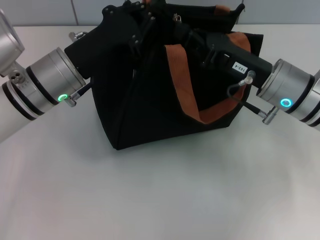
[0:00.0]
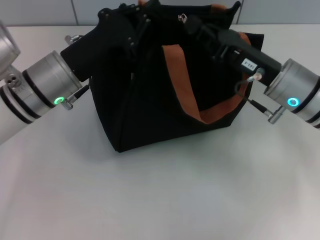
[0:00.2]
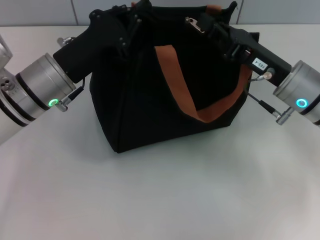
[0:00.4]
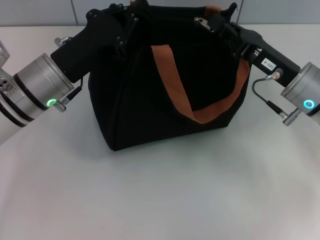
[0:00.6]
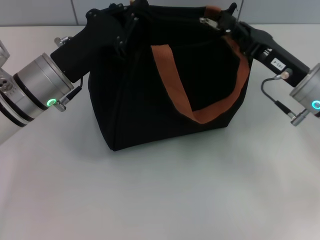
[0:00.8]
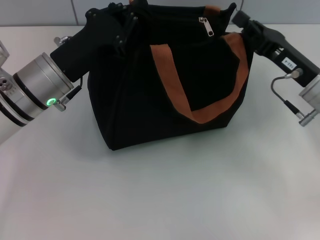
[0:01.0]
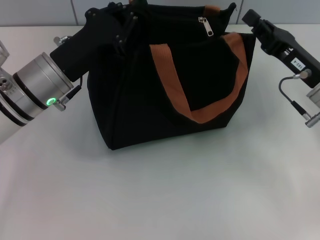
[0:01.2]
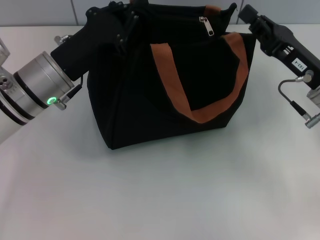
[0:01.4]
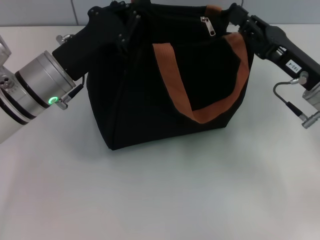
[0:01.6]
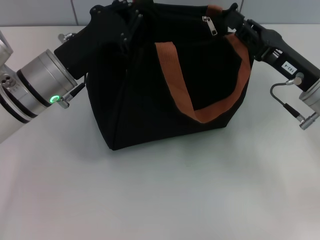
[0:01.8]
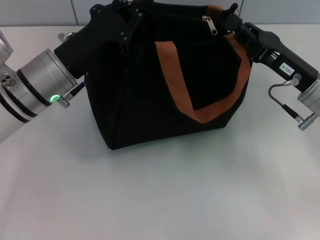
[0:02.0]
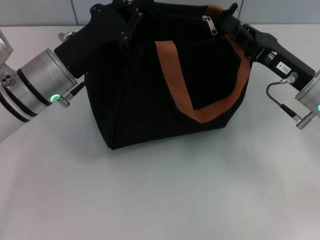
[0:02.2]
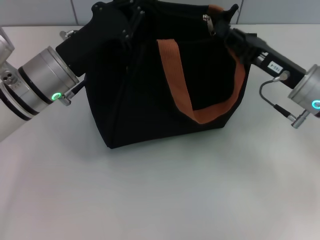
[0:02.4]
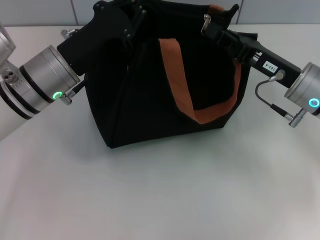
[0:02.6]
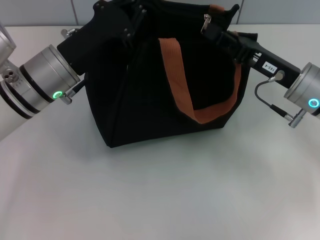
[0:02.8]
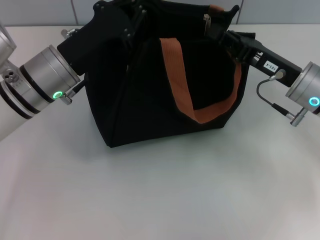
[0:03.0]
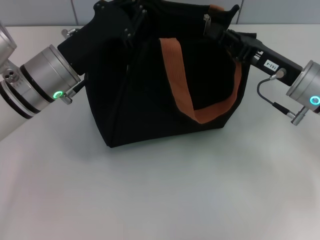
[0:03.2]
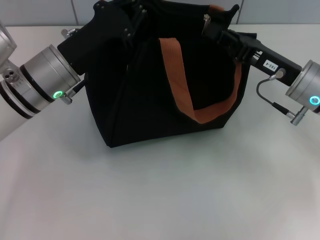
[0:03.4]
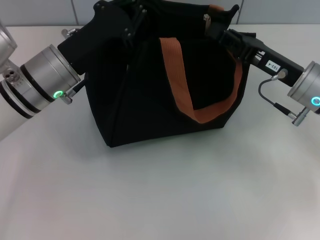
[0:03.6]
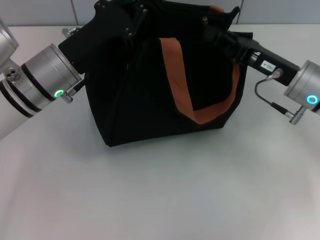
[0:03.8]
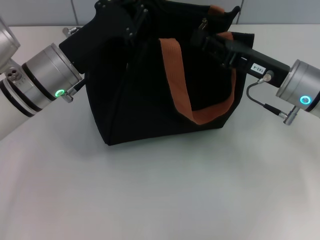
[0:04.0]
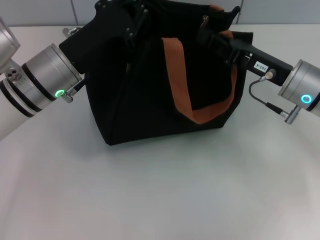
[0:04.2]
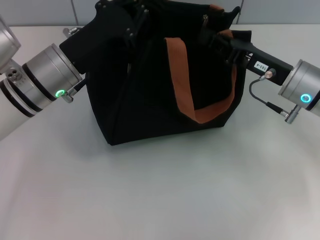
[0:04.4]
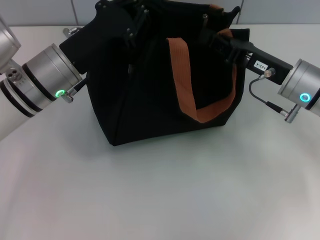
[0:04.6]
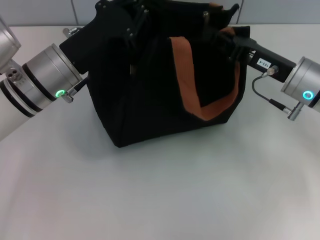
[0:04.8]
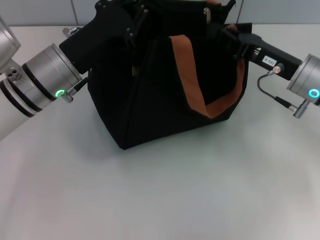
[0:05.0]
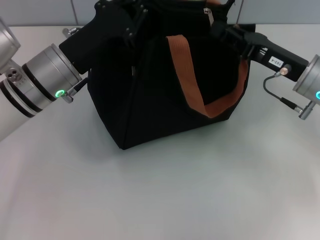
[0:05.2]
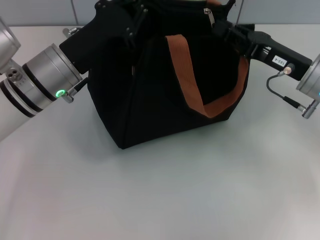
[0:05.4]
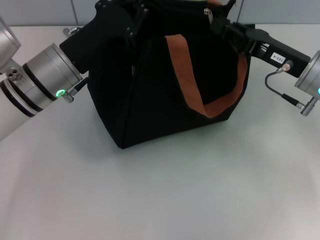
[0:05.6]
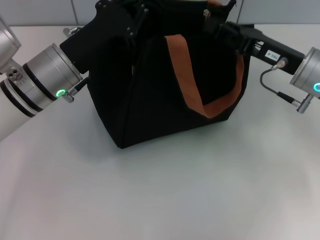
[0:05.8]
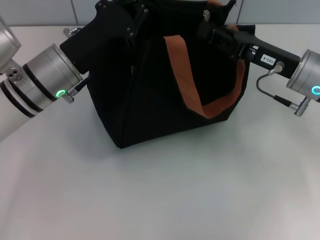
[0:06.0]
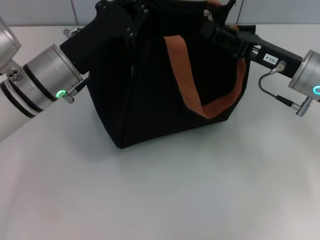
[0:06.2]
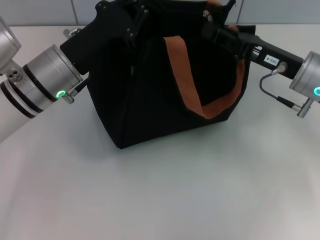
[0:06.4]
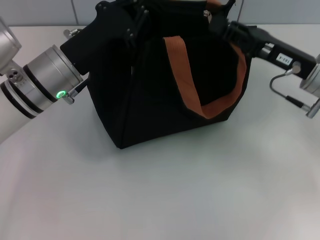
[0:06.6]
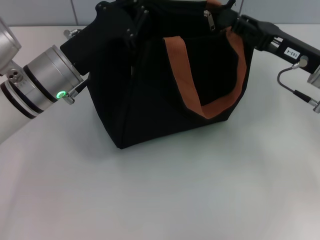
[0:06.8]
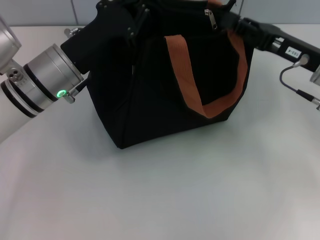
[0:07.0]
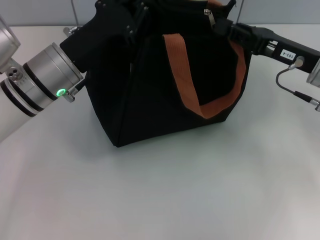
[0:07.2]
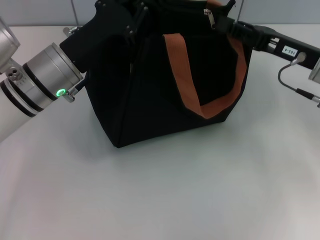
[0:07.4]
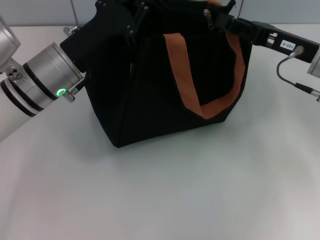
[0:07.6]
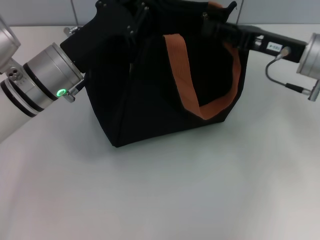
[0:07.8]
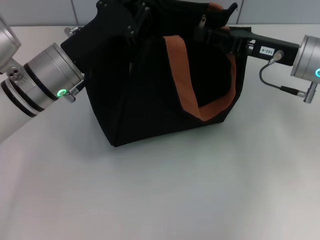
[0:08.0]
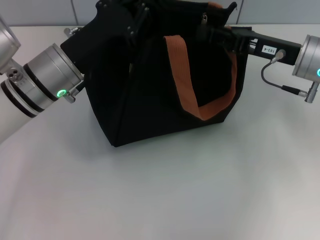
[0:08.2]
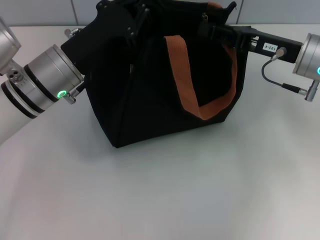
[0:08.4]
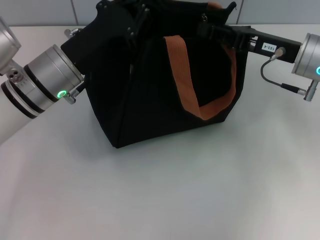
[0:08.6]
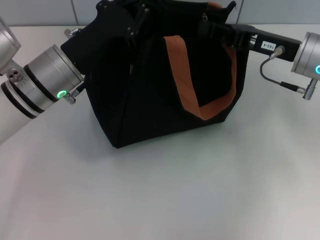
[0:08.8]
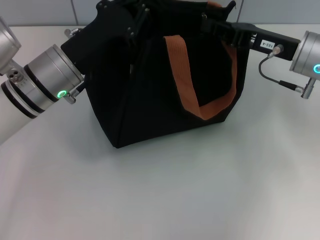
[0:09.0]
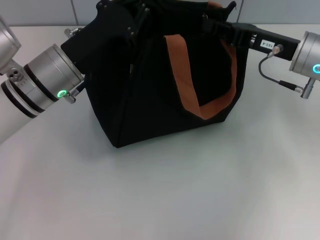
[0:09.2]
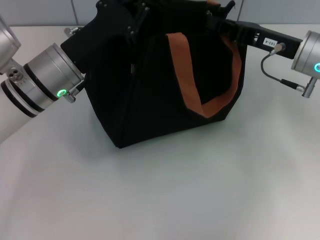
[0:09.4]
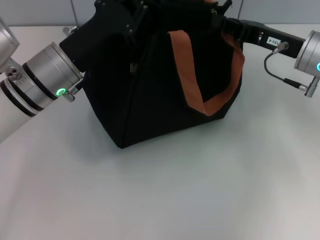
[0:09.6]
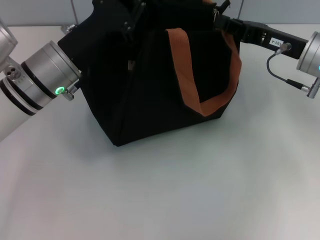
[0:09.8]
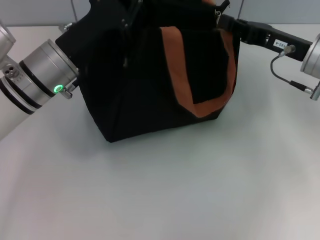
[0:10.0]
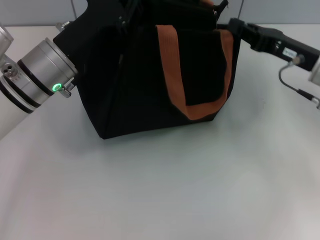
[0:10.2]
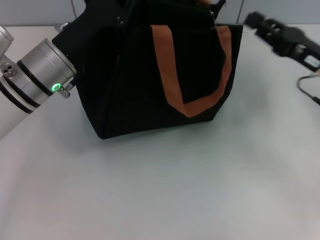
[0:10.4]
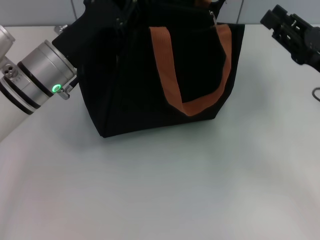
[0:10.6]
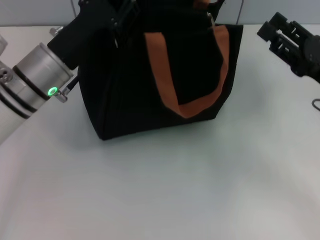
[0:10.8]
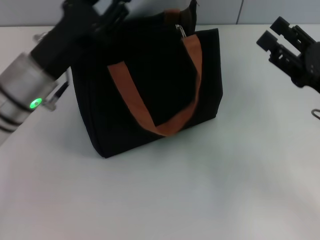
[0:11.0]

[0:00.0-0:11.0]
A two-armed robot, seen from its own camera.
Step, 0:00.0 to 0:10.2: Pull up the zipper with your right hand.
0:00.0 to 0:01.6: The right gripper travels to the right by roughly 5 cm.
0:01.6 to 0:06.2: There are only small adjustments of the grippers.
0:06.2 to 0:07.8: There are only small adjustments of the grippers.
0:07.8 to 0:09.4: Both grippers stay about where they are.
0:09.4 to 0:11.0: The right gripper shifts about 10 cm backward, and opens up.

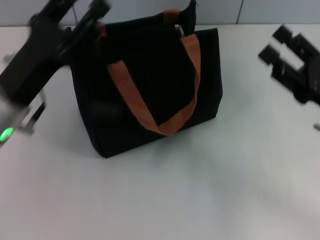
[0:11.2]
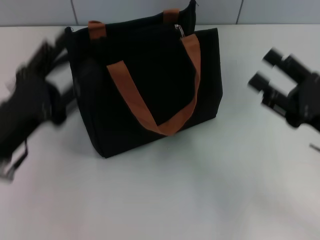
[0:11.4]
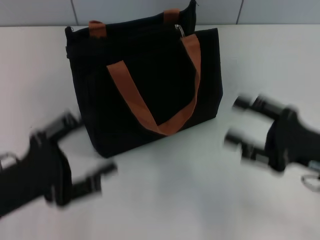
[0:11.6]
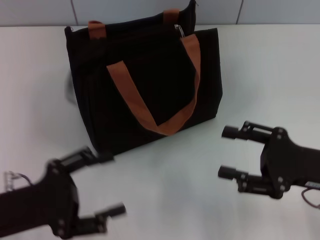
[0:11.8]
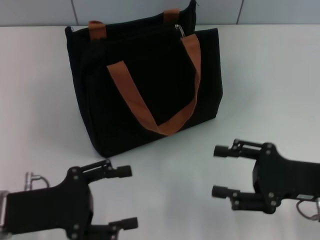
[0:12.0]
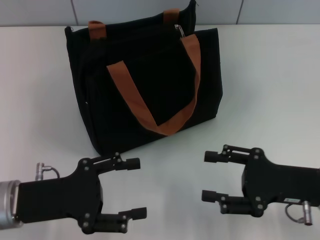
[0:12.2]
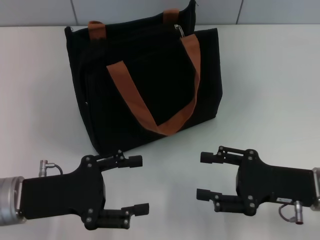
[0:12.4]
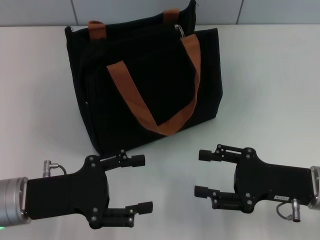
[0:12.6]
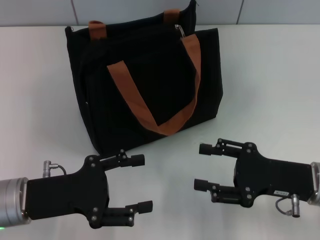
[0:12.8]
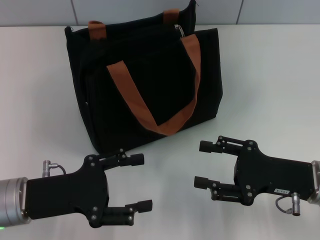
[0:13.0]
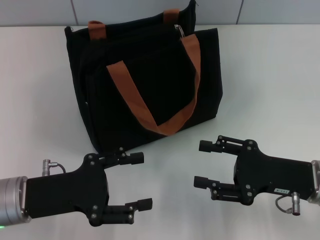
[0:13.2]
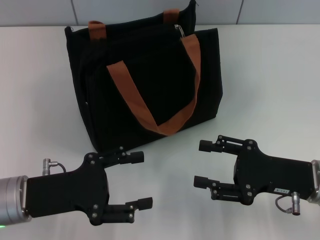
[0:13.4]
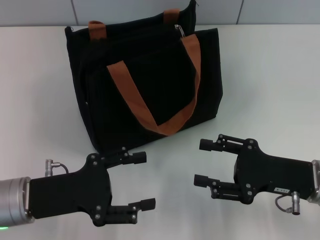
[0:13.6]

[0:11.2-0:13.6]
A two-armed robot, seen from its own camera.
0:11.2 to 0:12.4: The left gripper travels backward by approximately 5 cm, and opens up, while the right gripper ends up roughly 5 cm from where it was.
0:12.4 to 0:13.6: Both grippers stay put.

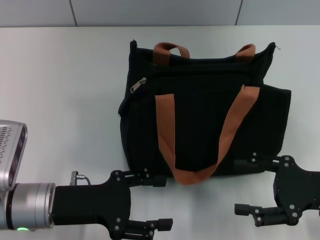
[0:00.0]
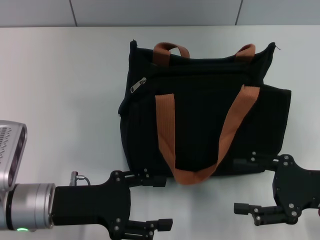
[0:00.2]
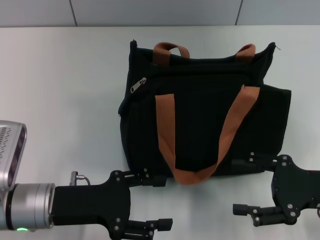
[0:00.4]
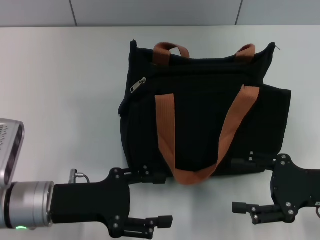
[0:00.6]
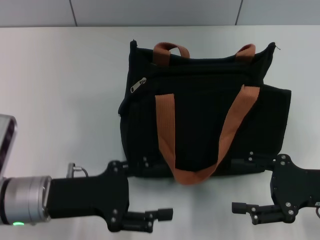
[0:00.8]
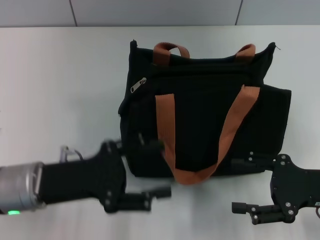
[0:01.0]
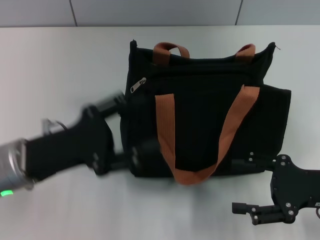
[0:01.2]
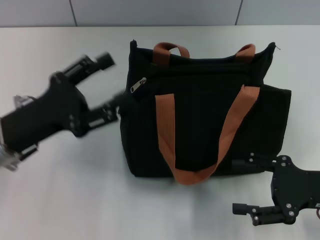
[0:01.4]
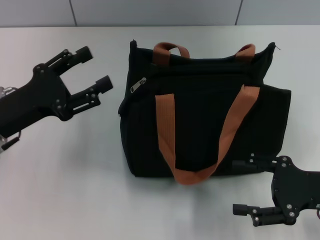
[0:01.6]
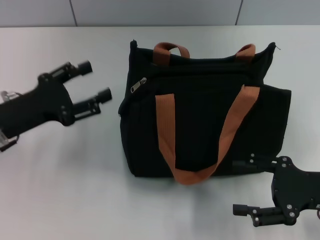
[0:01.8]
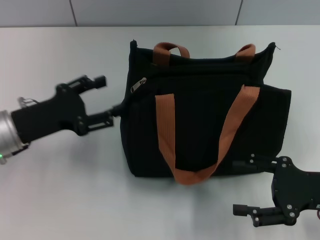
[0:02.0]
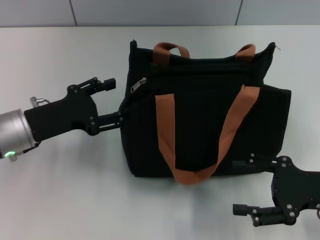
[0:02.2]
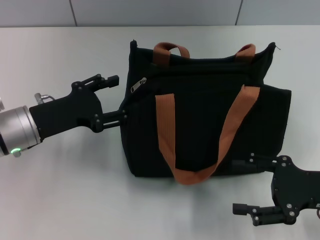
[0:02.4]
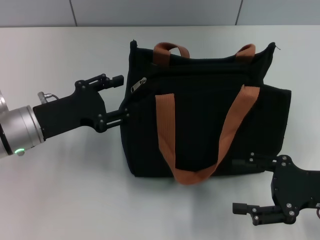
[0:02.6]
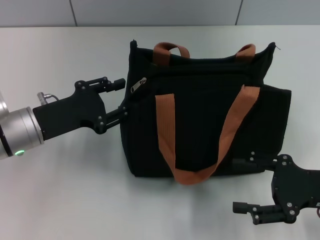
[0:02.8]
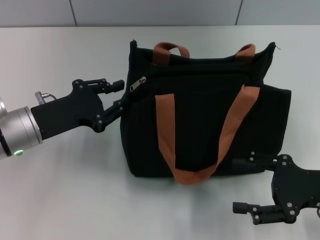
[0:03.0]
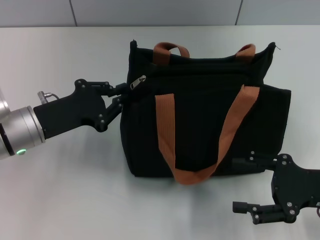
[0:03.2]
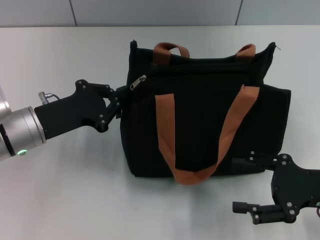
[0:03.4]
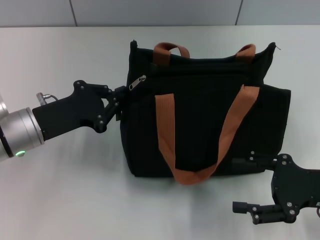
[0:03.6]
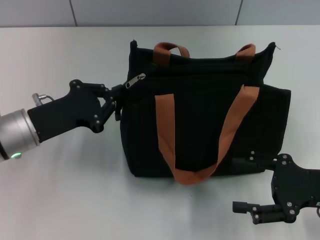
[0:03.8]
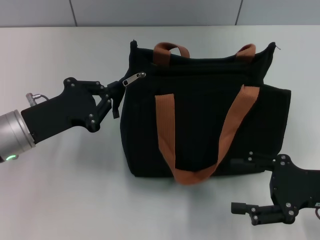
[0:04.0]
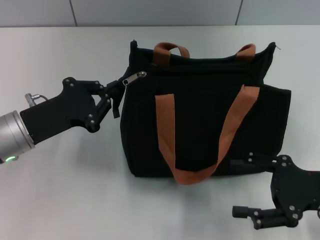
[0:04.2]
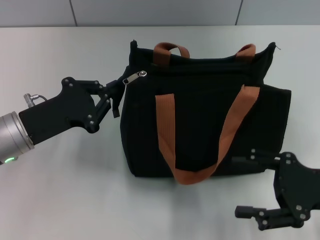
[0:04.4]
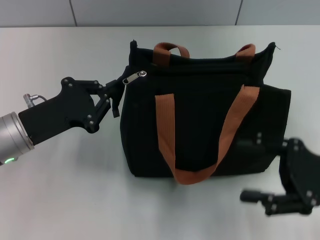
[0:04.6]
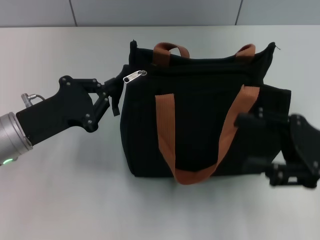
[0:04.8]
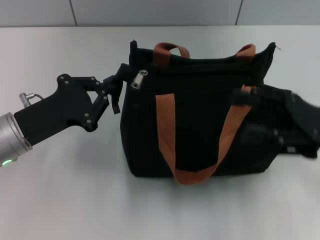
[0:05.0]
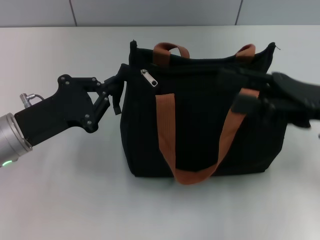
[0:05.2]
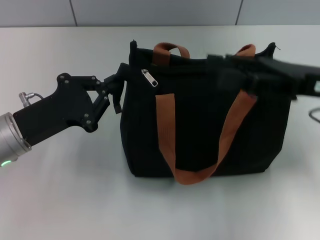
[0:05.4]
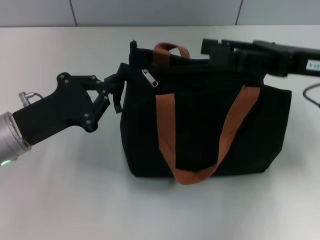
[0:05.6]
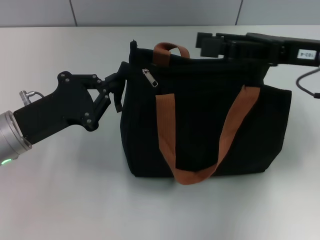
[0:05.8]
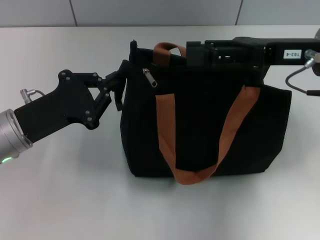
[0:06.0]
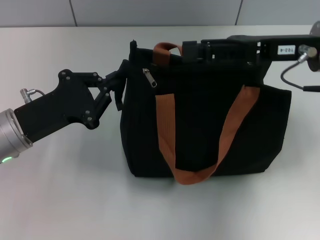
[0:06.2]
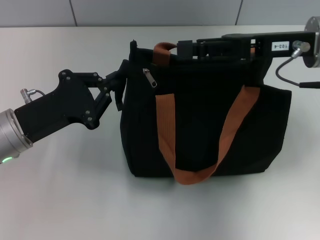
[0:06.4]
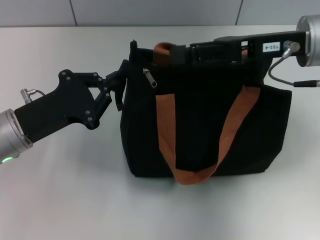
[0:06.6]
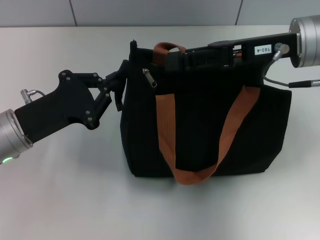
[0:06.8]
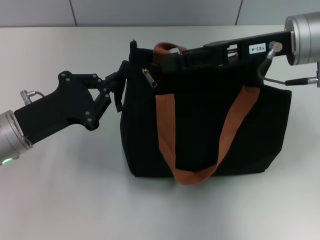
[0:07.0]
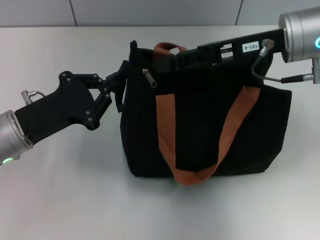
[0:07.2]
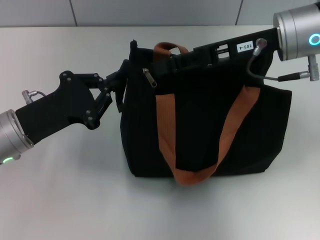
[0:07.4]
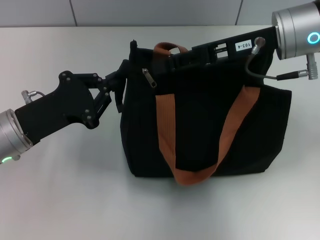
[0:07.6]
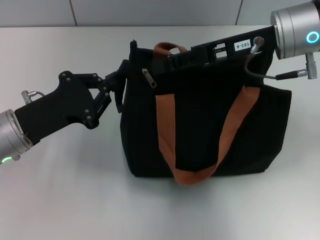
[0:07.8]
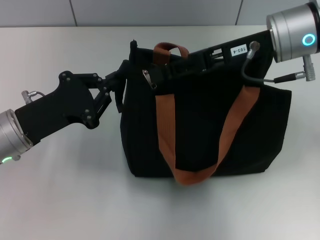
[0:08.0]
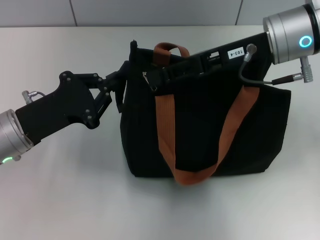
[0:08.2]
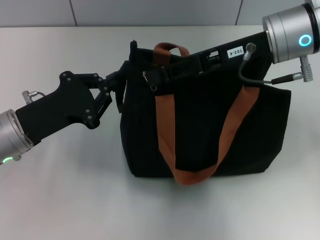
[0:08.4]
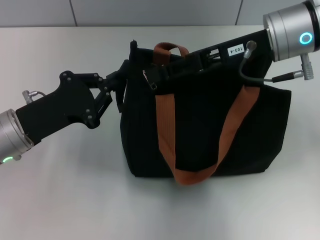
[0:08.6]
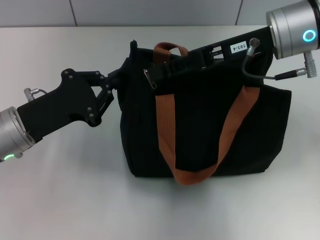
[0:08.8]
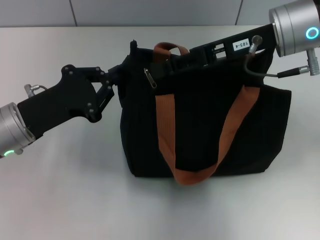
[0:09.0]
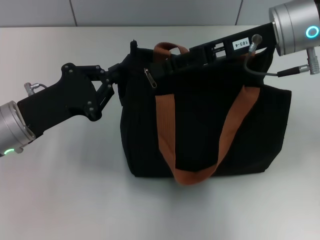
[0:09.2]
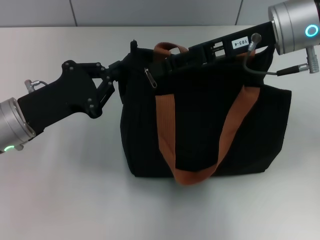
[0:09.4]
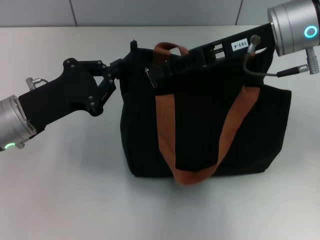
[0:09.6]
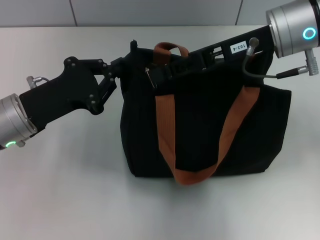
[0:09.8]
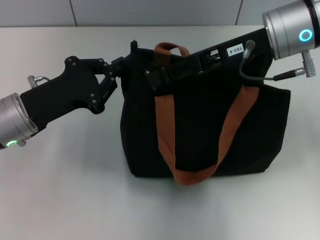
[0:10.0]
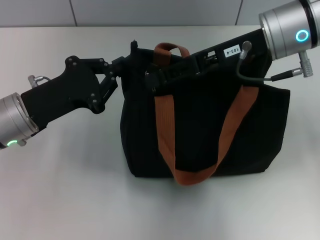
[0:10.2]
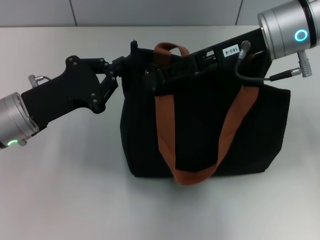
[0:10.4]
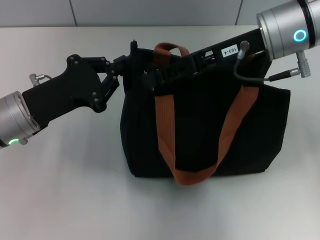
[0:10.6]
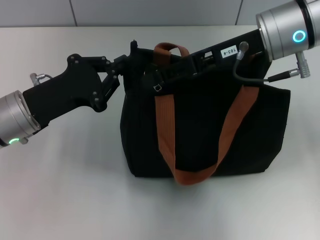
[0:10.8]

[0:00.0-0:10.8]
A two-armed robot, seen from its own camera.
0:00.0 to 0:01.6: The left gripper heads to the left and forward, covering approximately 10 cm.
0:01.6 to 0:03.0: The left gripper closes.
0:03.0 to 0:04.6: The left gripper closes.
0:04.6 to 0:06.2: The right gripper is displaced forward, upward and to the left by some 15 cm.
0:06.2 to 0:07.8: The right gripper moves approximately 5 cm.
0:07.8 to 0:09.2: Neither gripper changes place.
0:09.2 to 0:10.8: The grippers stay close to where they were, moving slightly.
